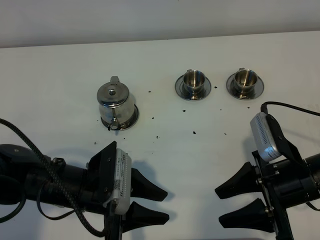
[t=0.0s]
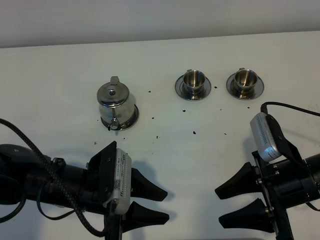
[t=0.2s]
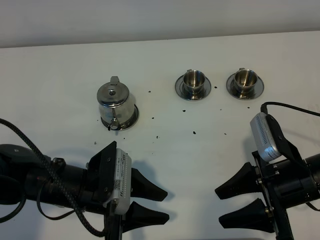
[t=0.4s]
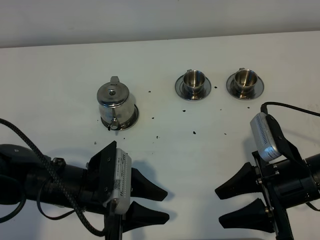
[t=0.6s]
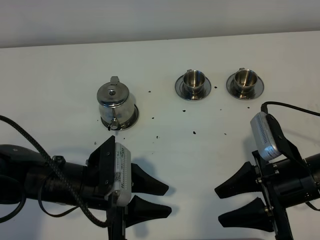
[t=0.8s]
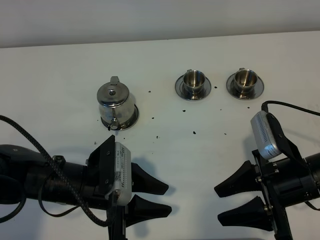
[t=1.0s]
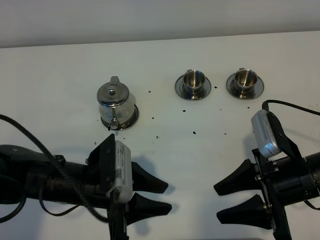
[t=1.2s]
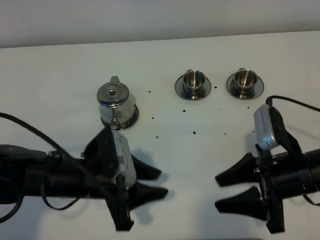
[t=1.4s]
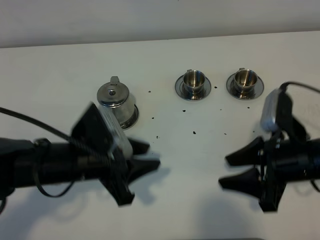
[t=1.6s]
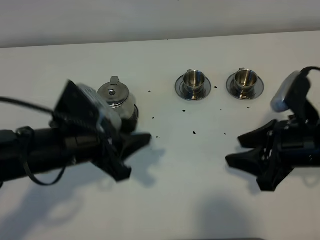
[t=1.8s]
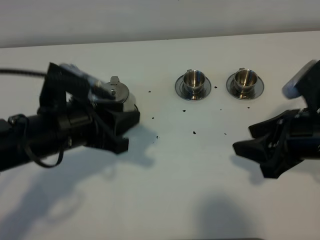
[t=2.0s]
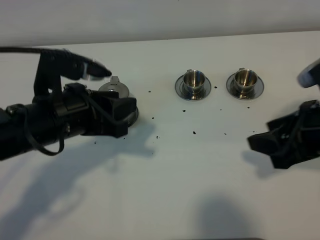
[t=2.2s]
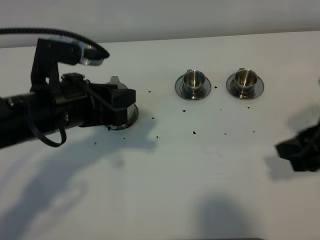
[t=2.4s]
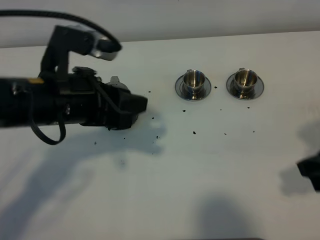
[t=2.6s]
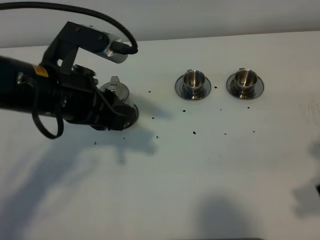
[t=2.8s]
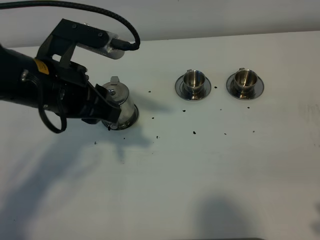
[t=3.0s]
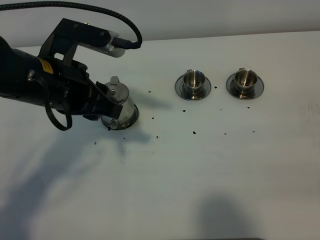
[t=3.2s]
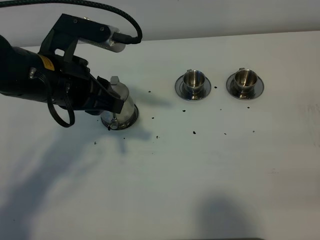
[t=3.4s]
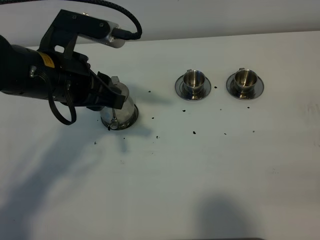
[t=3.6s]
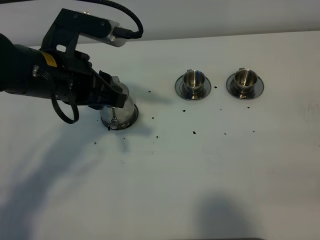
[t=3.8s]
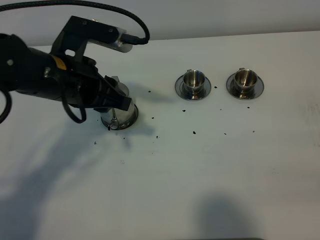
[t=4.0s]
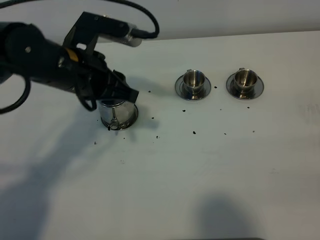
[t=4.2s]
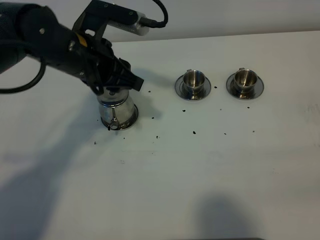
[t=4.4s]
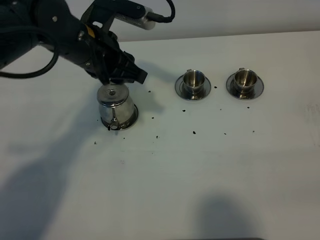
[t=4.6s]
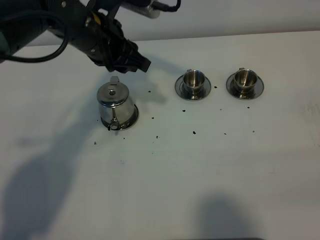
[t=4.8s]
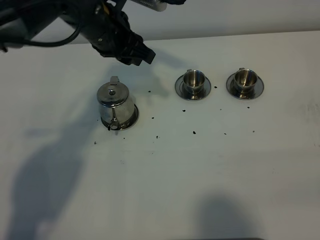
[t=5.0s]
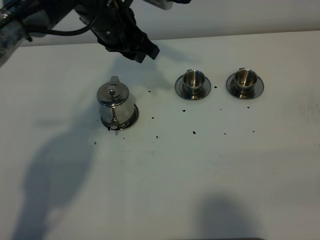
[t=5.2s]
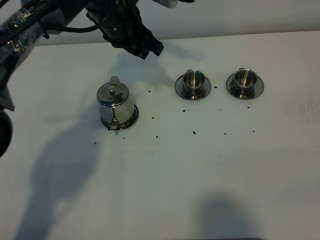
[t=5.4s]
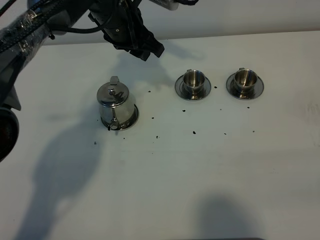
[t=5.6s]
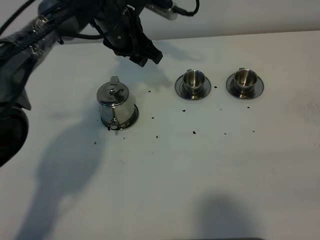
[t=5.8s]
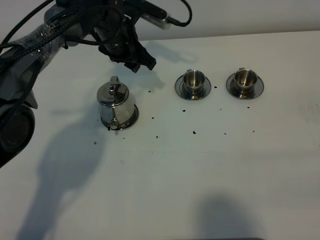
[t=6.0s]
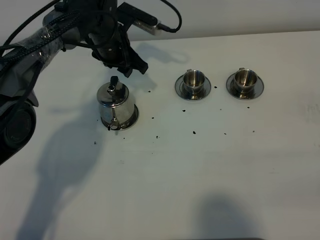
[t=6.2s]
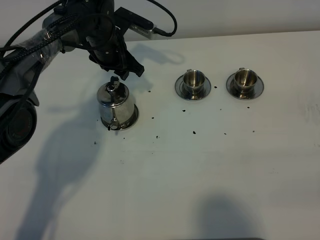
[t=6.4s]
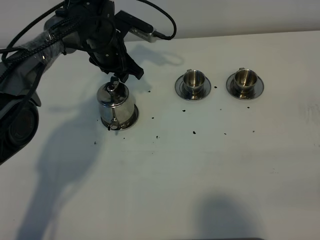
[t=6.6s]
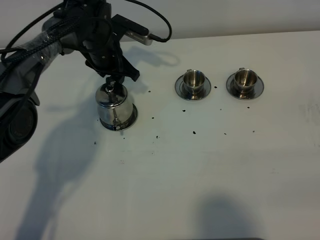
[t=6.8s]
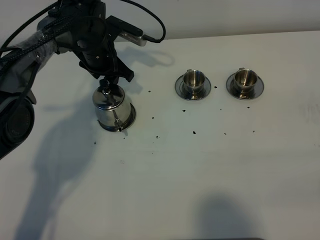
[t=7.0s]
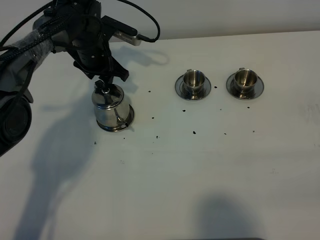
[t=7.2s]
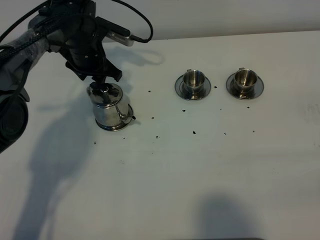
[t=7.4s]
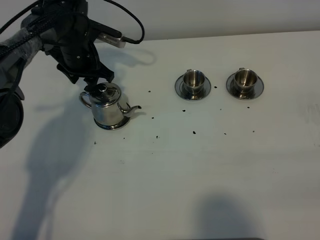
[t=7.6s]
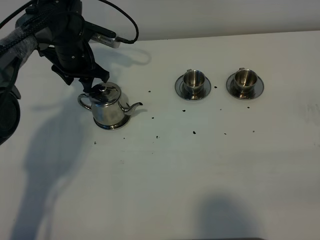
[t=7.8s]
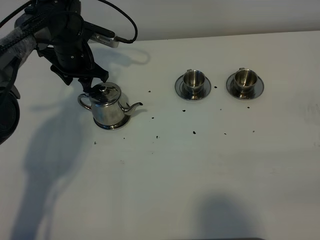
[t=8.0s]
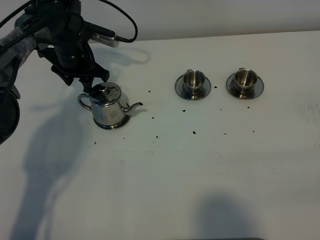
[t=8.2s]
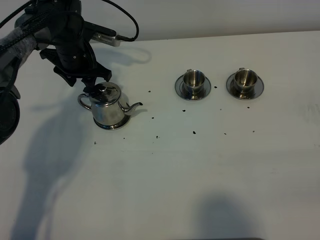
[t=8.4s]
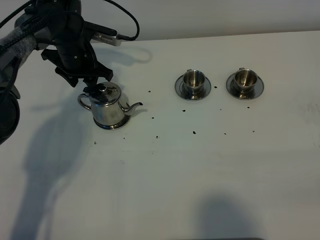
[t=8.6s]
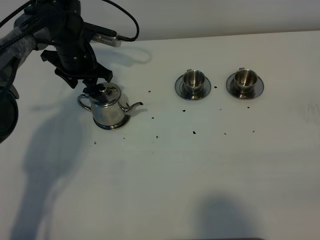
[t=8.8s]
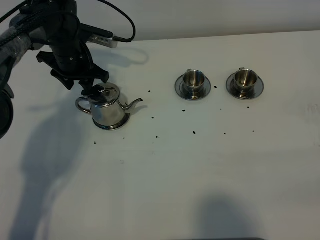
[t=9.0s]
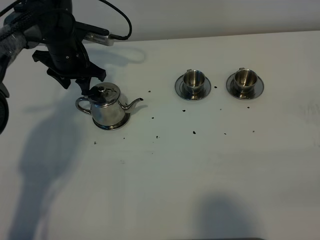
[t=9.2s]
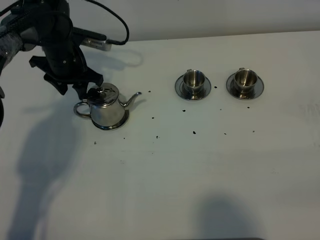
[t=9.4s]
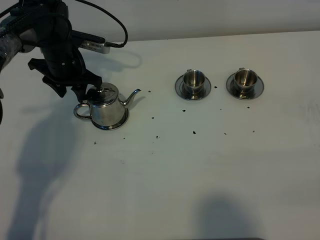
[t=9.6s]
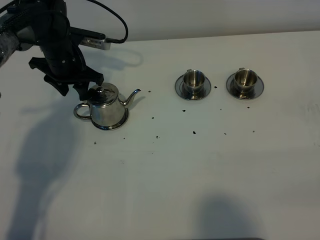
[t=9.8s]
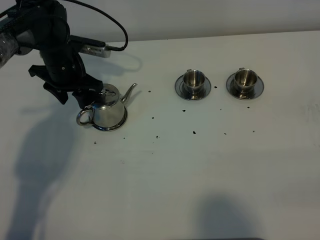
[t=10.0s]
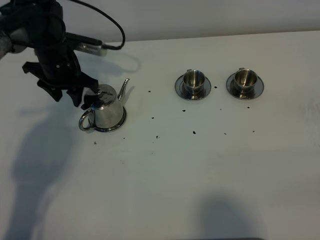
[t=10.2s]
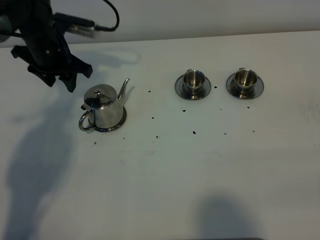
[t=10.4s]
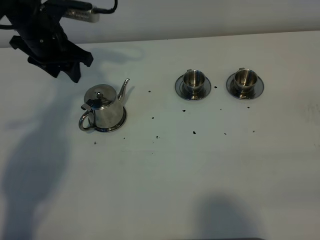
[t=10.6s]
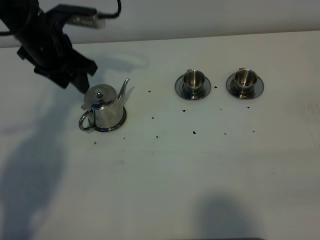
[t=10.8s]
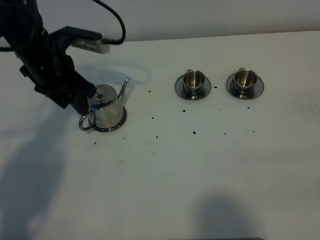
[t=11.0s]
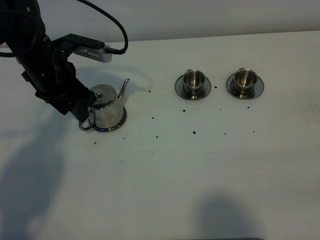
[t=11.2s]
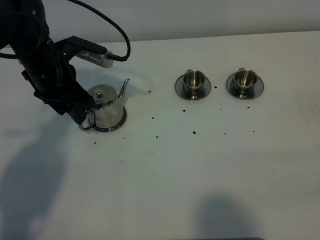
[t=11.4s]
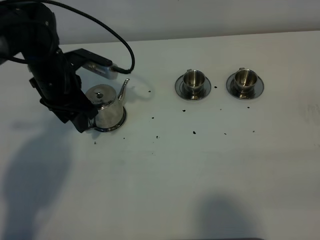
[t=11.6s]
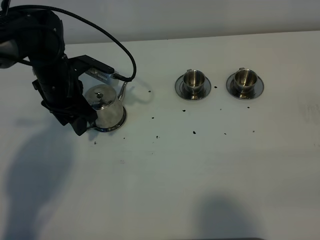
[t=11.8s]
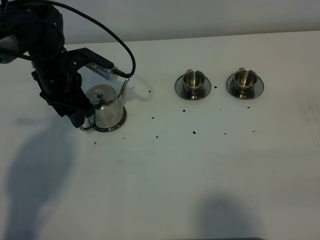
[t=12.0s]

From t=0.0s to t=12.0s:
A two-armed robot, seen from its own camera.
Task of the whole recording: grasp the stainless steel teapot and pour the tea into the two stainless steel teacups one by one, put the stainless steel teapot back in its original place.
From t=1.6s to t=3.0s: The left gripper shifts about 10 cm upward and forward. Meanwhile the right gripper is displaced backward, upward and to the right by some 20 cm.
From t=3.0s to t=4.4s: The left gripper travels forward by about 10 cm, while the right gripper shifts roughly 5 cm backward.
From t=4.4s to t=6.0s: The left gripper goes approximately 15 cm forward and downward.
From t=6.0s to t=7.6s: The left gripper heads to the left, covering approximately 10 cm.
From t=7.6s to t=9.0s: The grippers make only small movements.
From t=9.0s to t=10.4s: The left gripper goes approximately 5 cm upward.
From t=10.4s to t=12.0s: The left gripper changes place by some 5 cm.

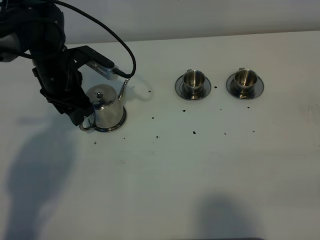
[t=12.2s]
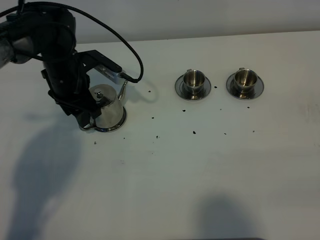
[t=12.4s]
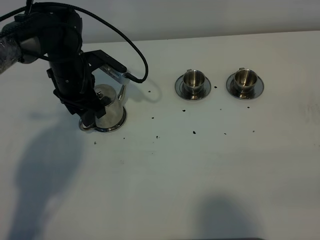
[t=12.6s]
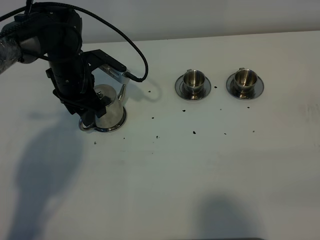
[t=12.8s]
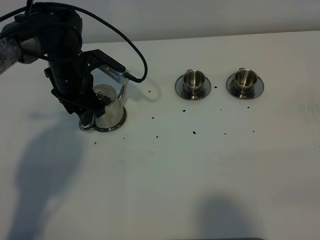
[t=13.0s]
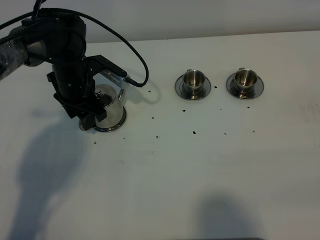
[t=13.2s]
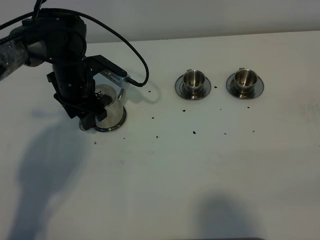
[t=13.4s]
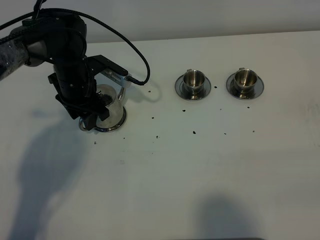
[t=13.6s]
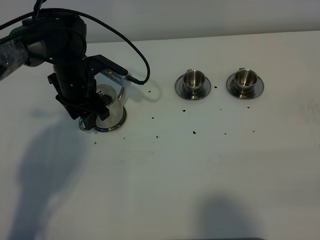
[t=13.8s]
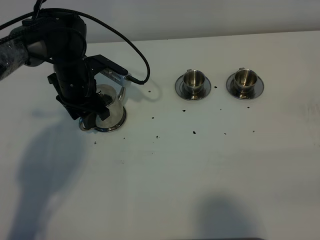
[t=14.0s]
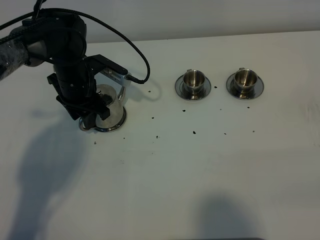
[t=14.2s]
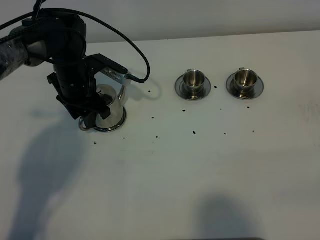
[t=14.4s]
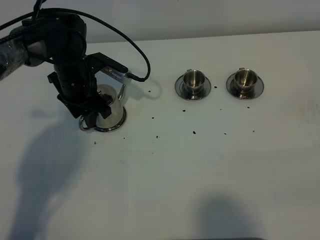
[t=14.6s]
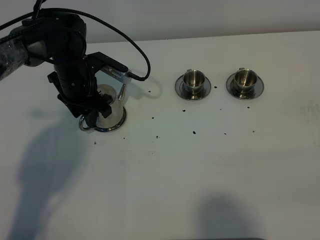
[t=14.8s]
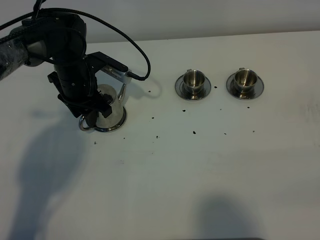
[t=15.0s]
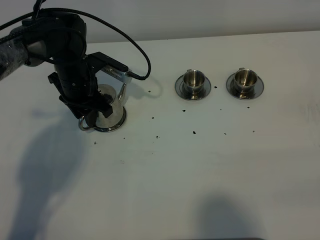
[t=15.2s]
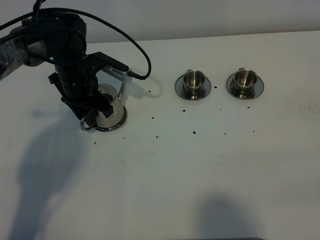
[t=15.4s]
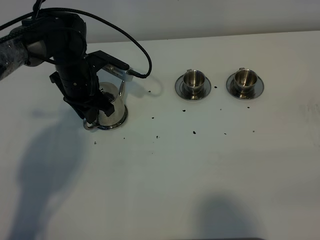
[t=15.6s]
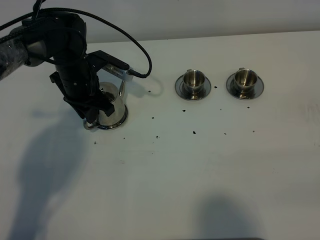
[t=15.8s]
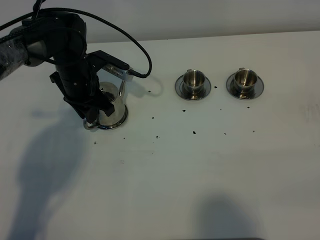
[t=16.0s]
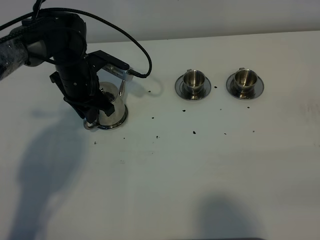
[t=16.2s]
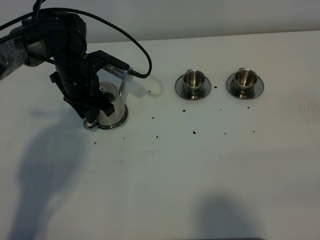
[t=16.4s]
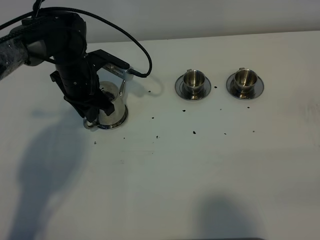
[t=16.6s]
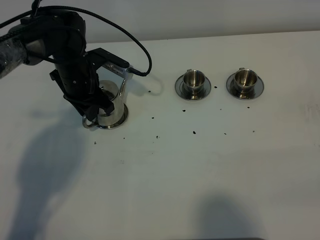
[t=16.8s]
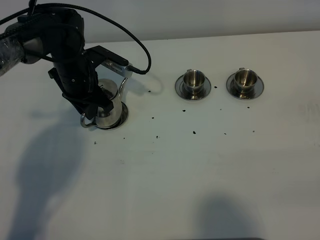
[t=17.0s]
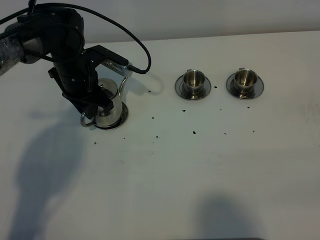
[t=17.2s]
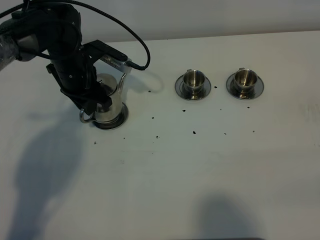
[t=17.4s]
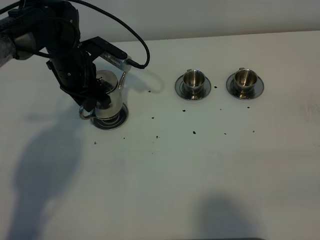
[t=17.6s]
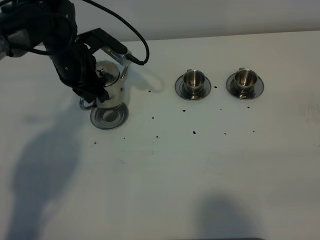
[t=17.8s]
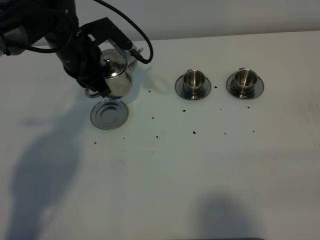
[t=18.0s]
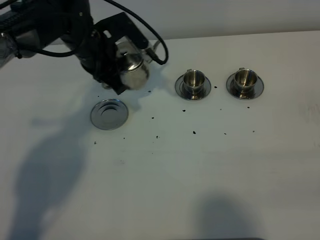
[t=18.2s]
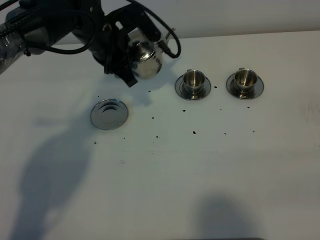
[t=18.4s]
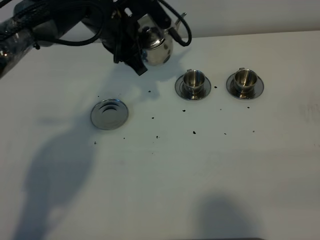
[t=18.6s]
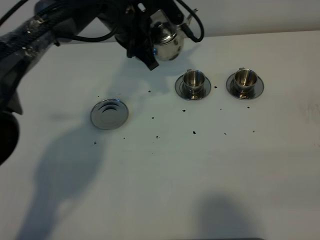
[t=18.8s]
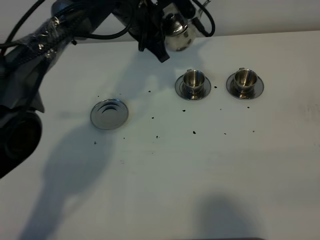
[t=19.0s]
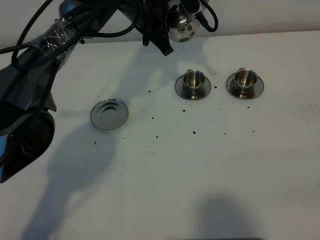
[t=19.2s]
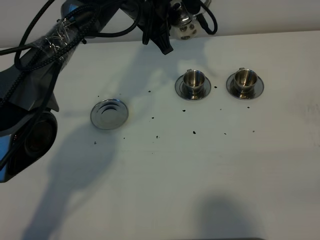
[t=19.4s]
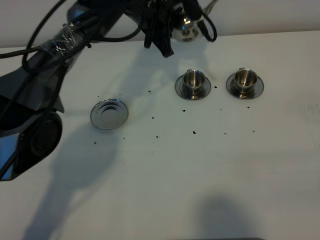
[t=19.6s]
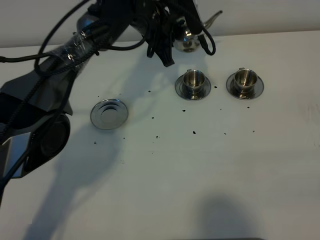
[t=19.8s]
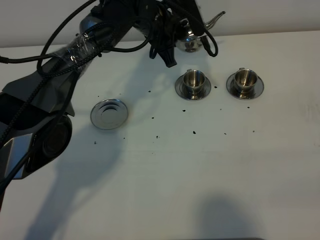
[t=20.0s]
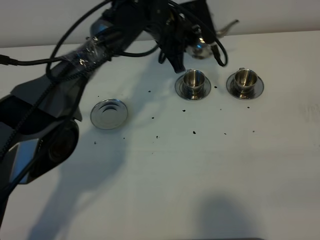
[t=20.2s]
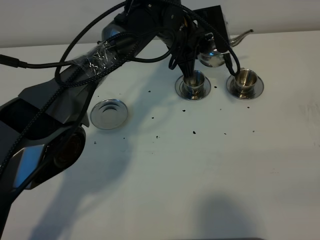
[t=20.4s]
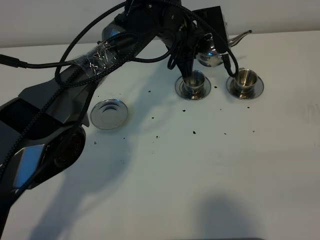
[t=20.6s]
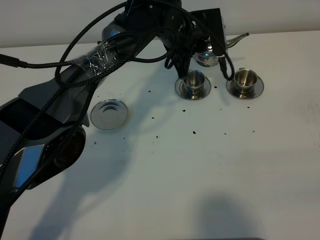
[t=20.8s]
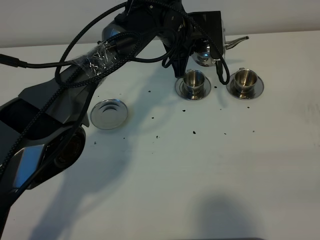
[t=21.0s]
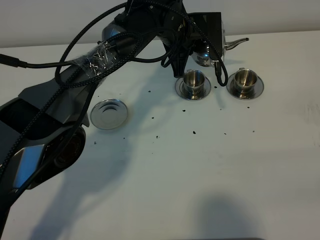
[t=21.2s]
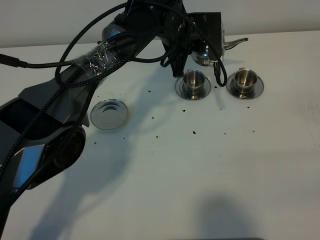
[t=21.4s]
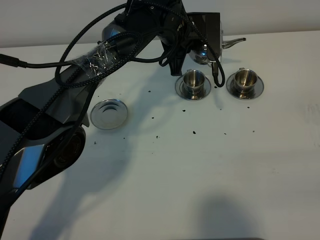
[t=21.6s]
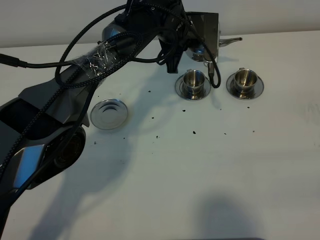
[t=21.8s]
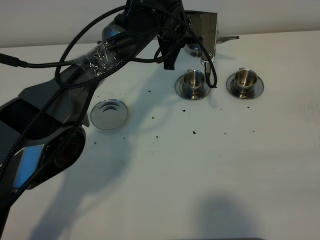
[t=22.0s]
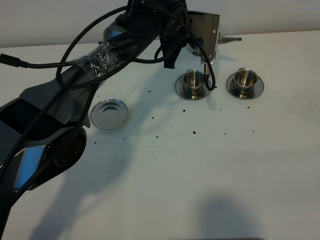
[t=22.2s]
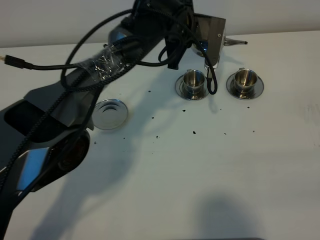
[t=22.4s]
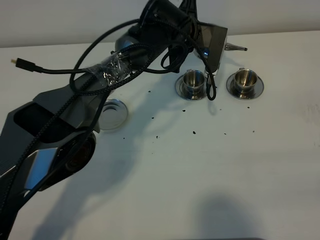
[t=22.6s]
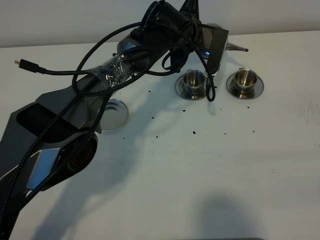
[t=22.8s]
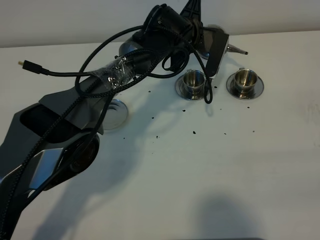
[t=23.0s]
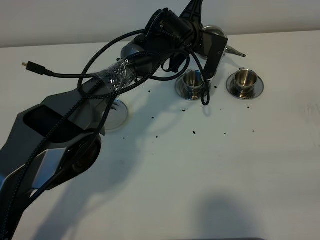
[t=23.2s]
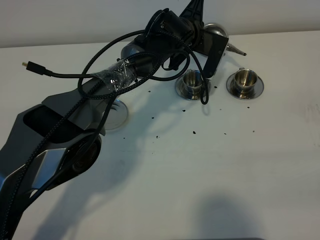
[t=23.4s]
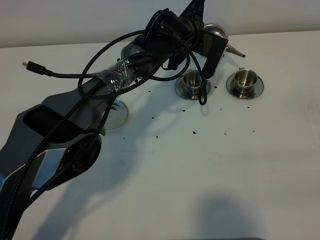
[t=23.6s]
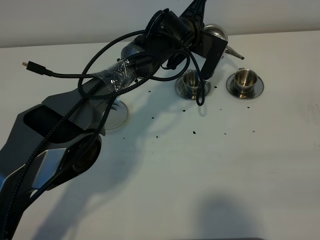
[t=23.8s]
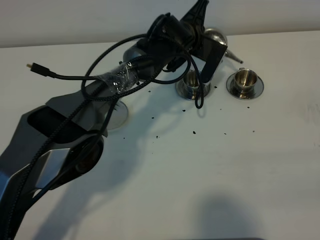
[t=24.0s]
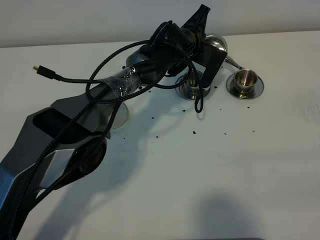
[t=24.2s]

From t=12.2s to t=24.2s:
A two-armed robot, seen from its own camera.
Task of the whole recording: grasp the stainless steel teapot and pour the tea into the two stainless steel teacups one by one, put the stainless steel teapot back in its original place.
Step, from t=12.2s to t=17.4s: Pick up the teapot with the left gripper.
From t=12.2s to t=13.8s: There are only small adjustments of the grippers.
From t=13.8s to t=15.2s: The left gripper closes up.
From t=15.2s to t=16.6s: The left gripper closes.
From t=16.6s to t=18.2s: The left gripper travels upward by about 5 cm.
From t=18.2s to t=19.8s: The left gripper travels to the right and forward by some 10 cm.
From t=19.8s to t=21.2s: The left gripper shifts by about 5 cm.
From t=22.6s to t=24.2s: The grippers move only a little.
